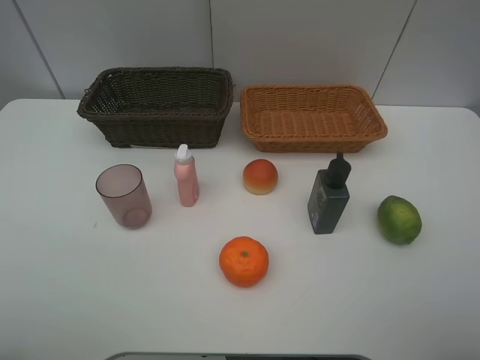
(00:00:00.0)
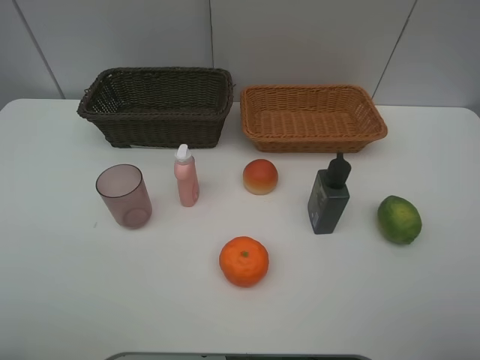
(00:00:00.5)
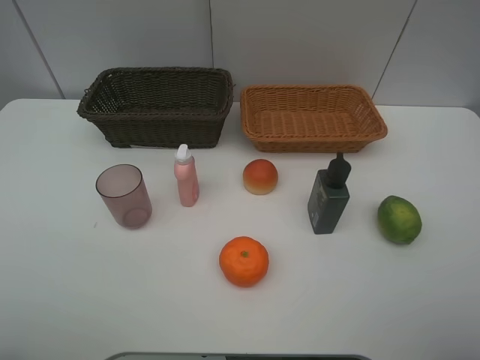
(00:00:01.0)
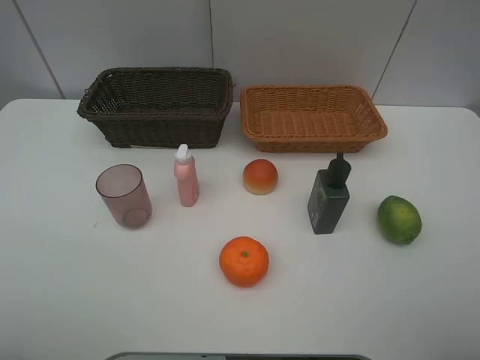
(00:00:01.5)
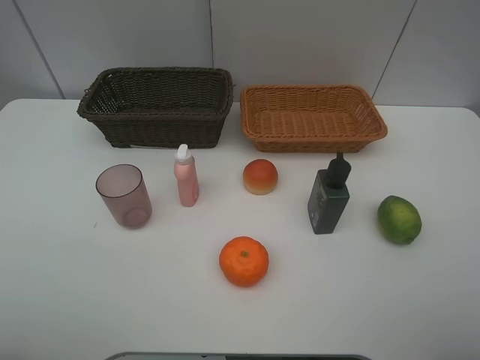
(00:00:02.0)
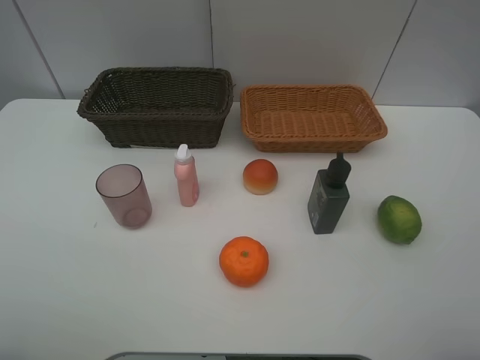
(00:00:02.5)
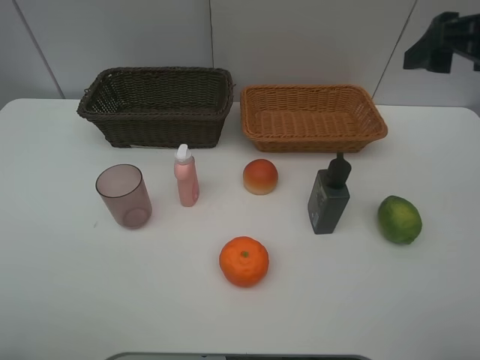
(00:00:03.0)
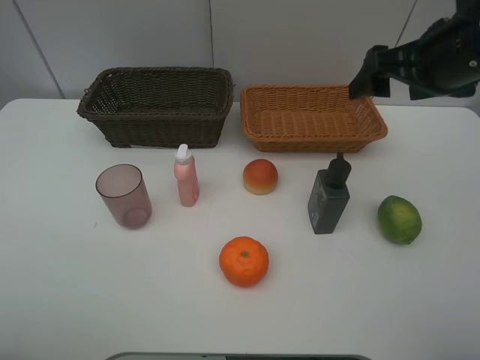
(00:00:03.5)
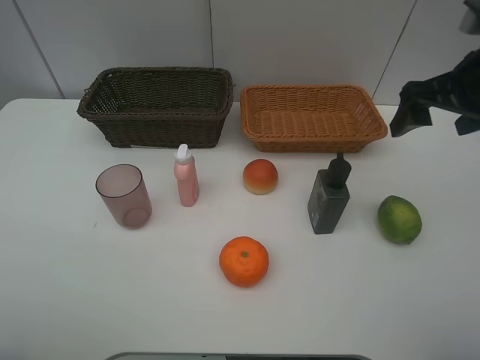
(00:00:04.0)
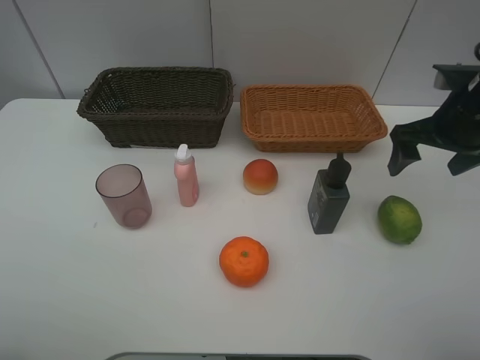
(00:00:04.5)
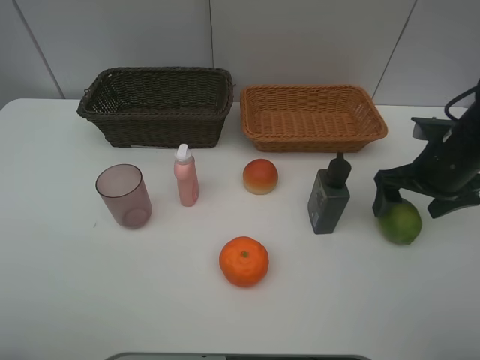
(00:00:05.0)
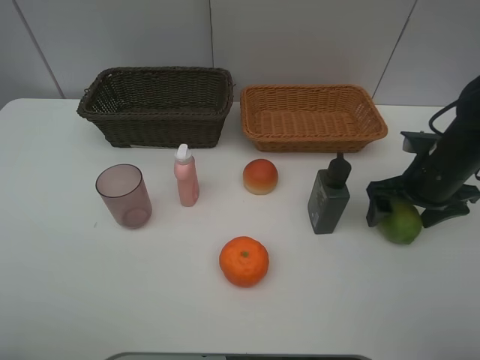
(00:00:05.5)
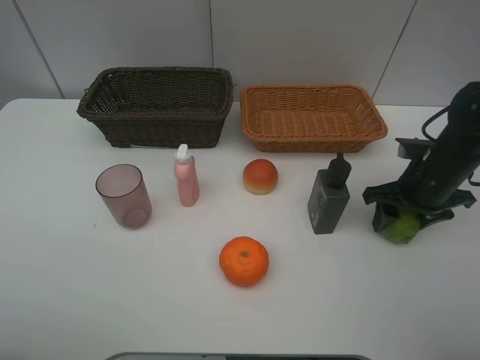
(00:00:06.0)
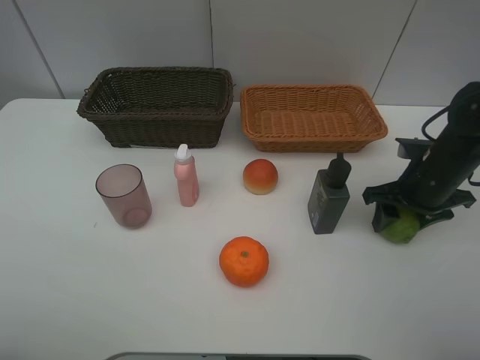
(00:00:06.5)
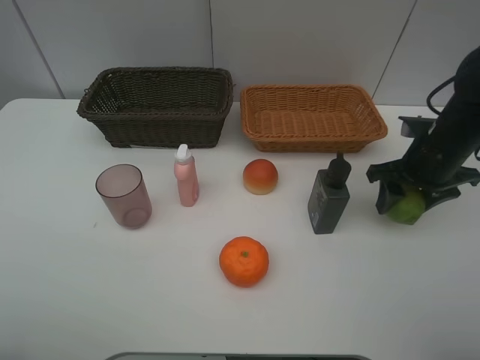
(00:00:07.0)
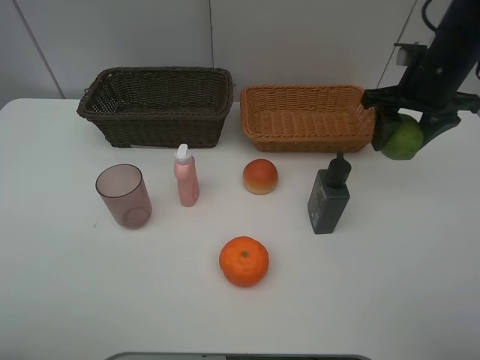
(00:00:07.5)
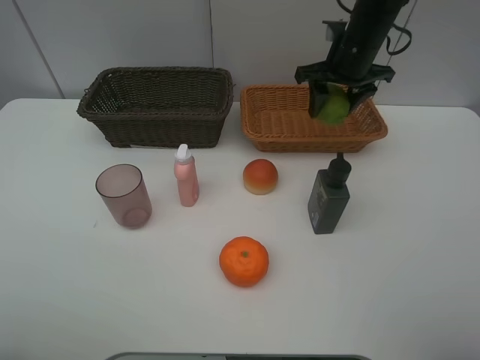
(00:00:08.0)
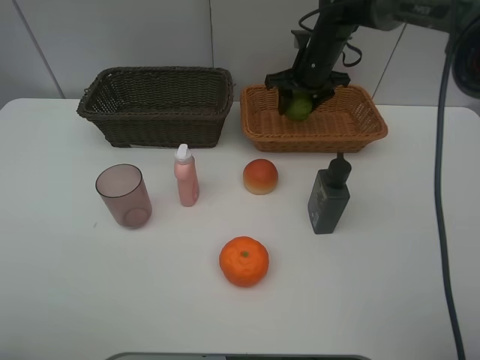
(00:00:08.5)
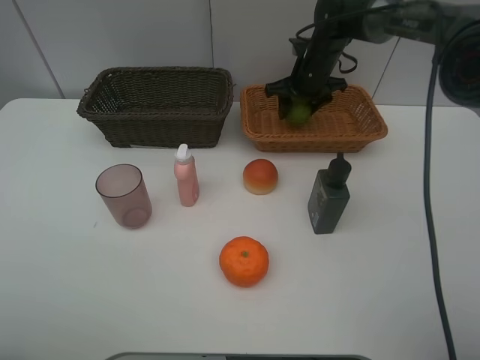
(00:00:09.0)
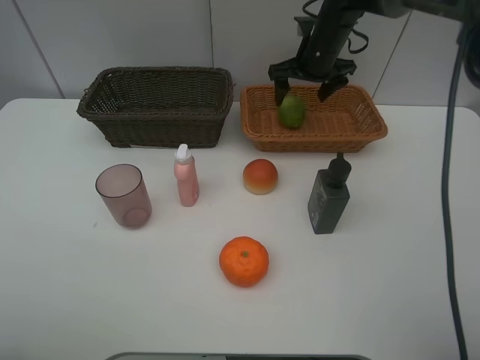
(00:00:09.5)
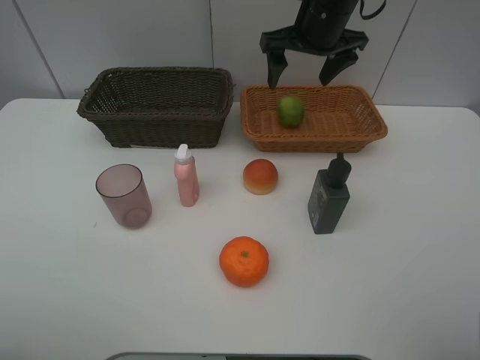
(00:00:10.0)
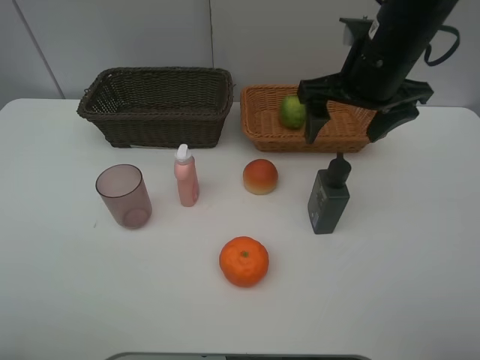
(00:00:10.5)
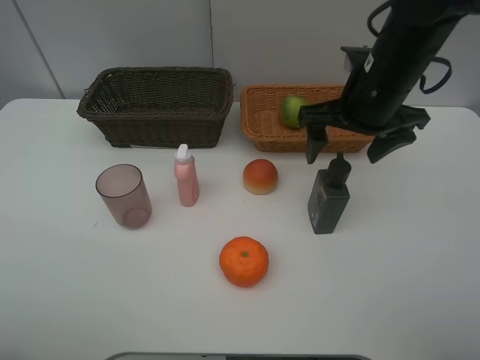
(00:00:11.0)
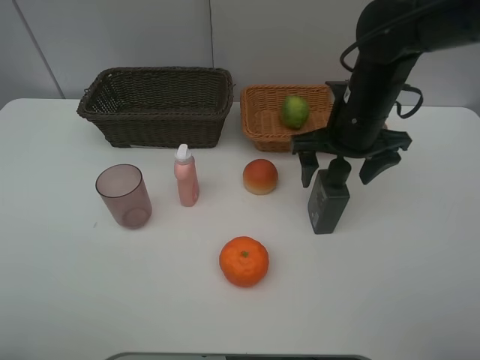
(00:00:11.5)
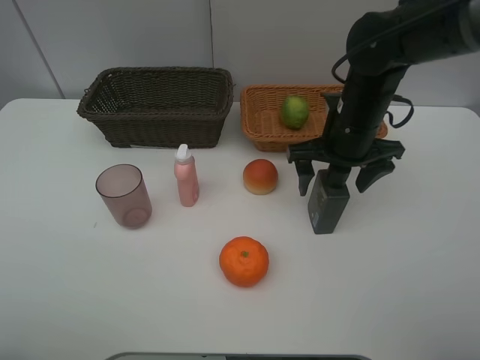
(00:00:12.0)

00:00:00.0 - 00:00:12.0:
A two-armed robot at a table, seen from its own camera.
Task of the whole recording: place multiple objects separately in different baskets.
00:00:00.0 - 00:00:02.0: Both grippers stay put.
00:00:02.0 - 00:00:04.0: The right gripper moves forward, roughly 25 cm.
00:00:04.0 - 00:00:06.0: The right gripper shifts about 15 cm downward, and closes.
00:00:06.0 - 00:00:08.0: The right gripper heads forward, to the left and upward, covering approximately 20 cm.
00:00:08.0 - 00:00:10.0: The right gripper shifts about 5 cm upward, and opens.
00:00:10.0 - 00:00:12.0: The right gripper is displaced downward and backward by some 15 cm.

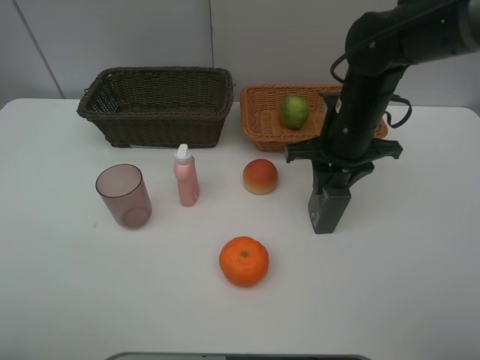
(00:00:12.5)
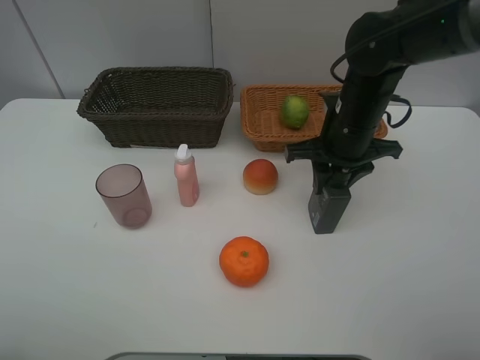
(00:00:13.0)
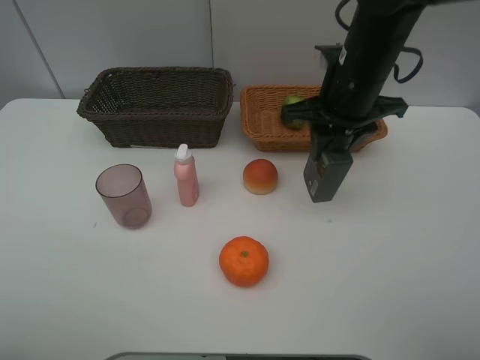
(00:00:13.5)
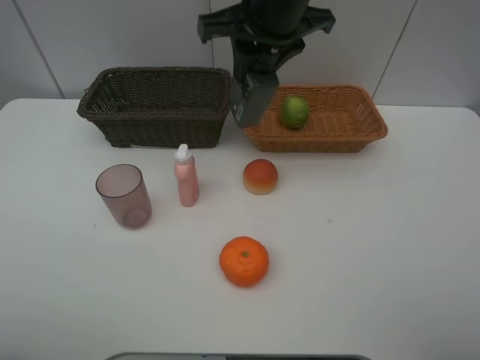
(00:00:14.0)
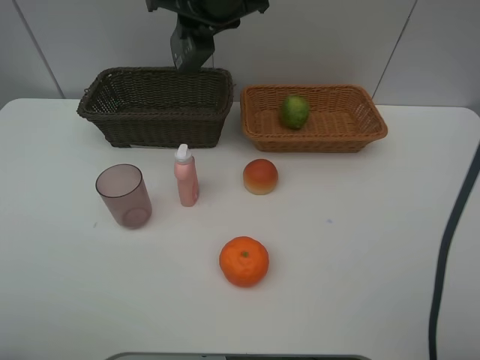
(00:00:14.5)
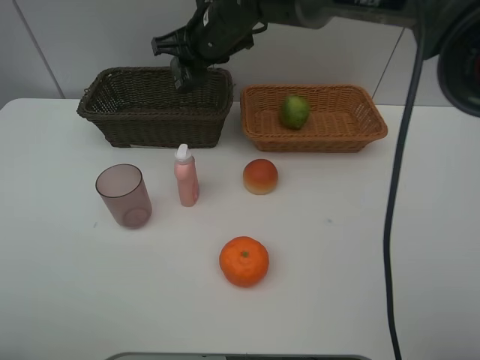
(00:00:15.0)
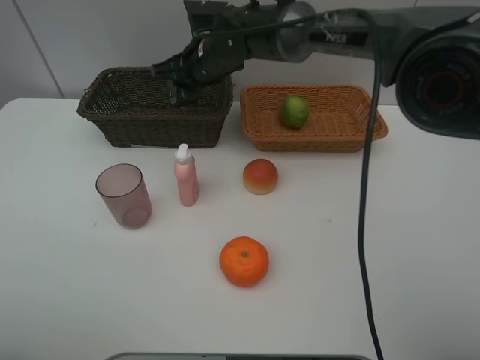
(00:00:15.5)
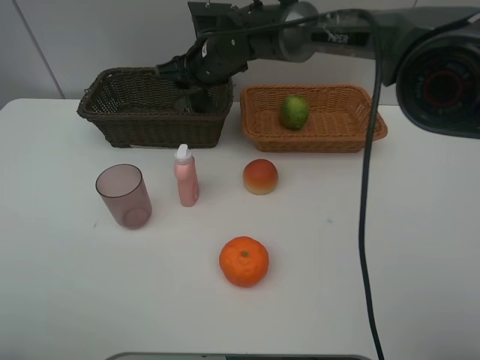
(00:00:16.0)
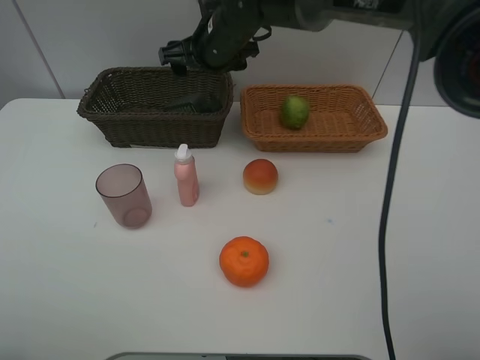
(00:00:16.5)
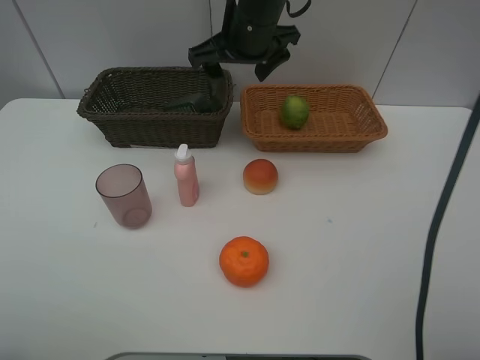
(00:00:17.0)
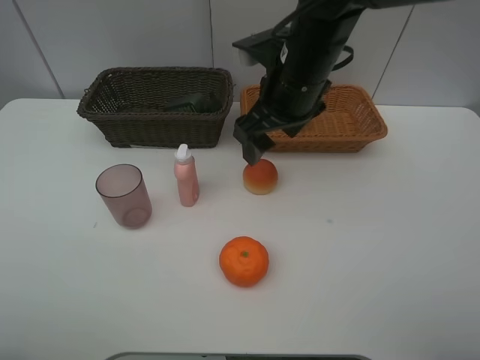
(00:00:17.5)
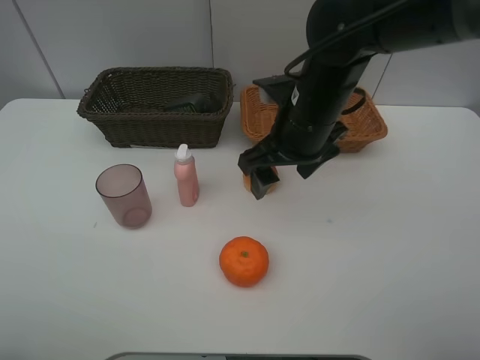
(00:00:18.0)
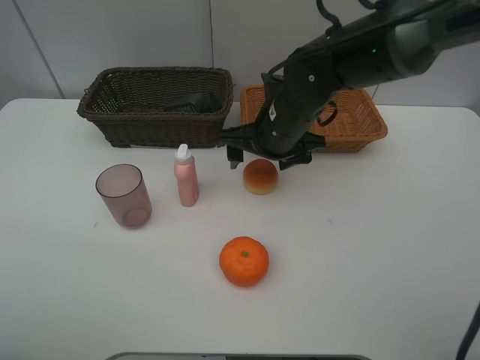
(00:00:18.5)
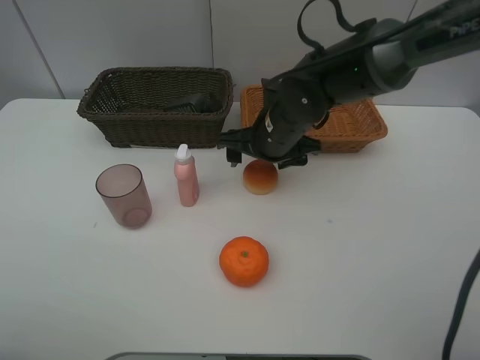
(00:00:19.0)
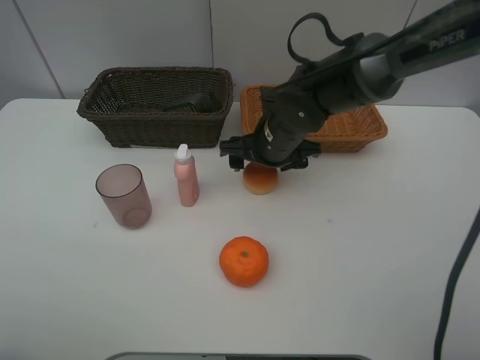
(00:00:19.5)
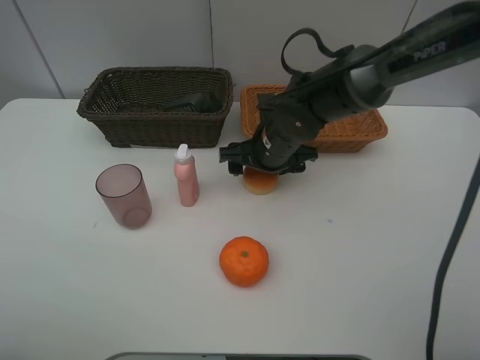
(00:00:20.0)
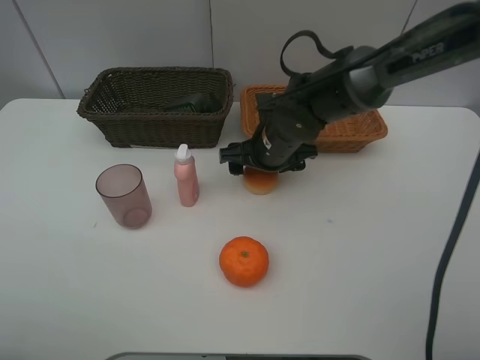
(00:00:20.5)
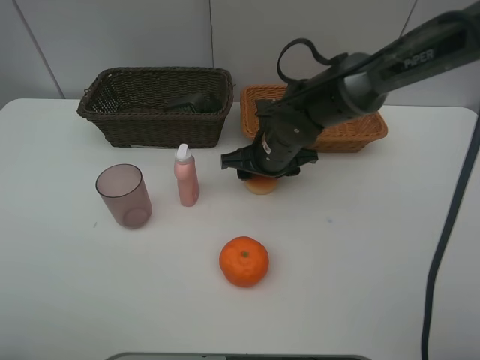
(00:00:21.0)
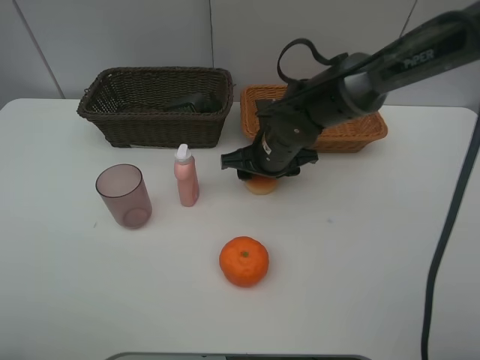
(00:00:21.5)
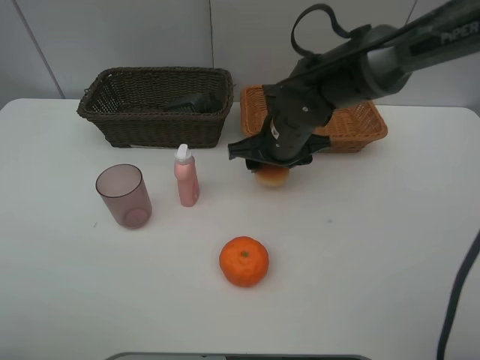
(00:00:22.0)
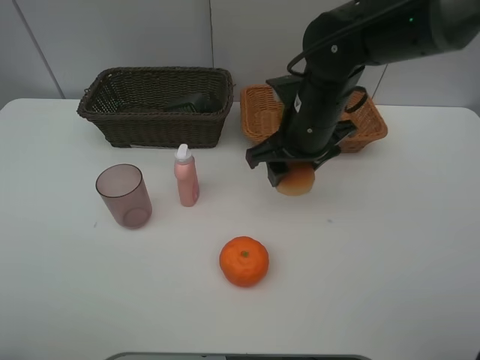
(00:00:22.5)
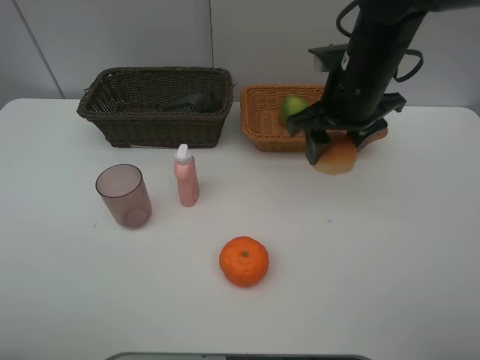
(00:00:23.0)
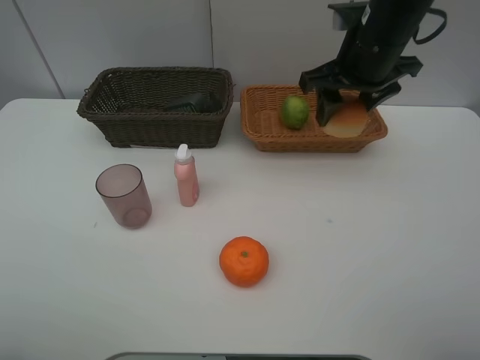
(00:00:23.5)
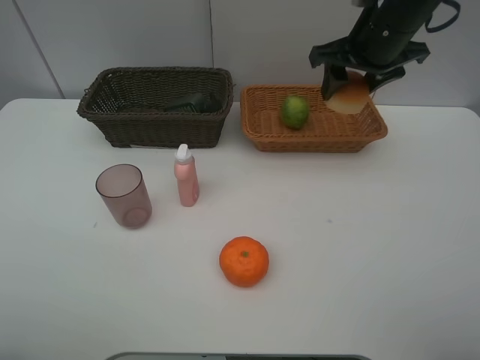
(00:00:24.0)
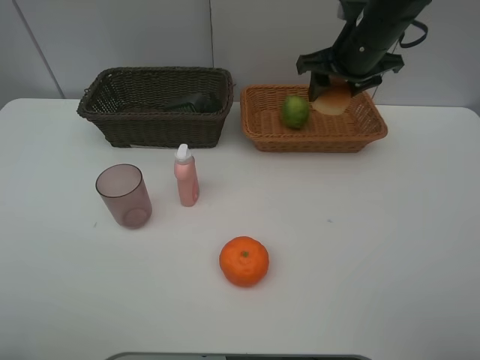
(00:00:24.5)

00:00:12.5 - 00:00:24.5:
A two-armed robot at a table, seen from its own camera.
Task of the whole recording: place multiple objects separately in different baskets.
00:00:12.5 - 00:00:14.5: The right gripper moves to the left, upward and forward, some 20 cm.
00:00:14.5 - 00:00:16.5: The right gripper is displaced downward by some 10 cm, and opens its fingers.
00:00:16.5 - 00:00:18.5: The right gripper goes about 15 cm backward, to the right and downward.
00:00:18.5 - 00:00:20.5: The right gripper moves downward, about 5 cm.
00:00:20.5 - 00:00:22.5: The right gripper heads upward, covering approximately 10 cm, and closes up.
00:00:22.5 - 00:00:24.5: The right gripper moves forward, to the right and upward, about 15 cm.

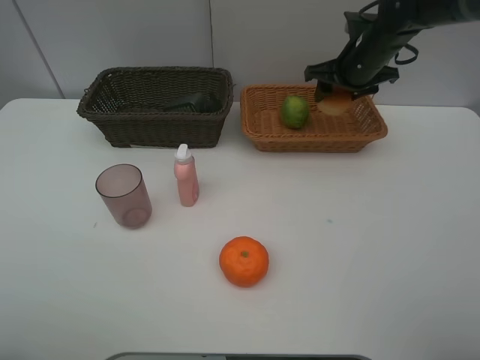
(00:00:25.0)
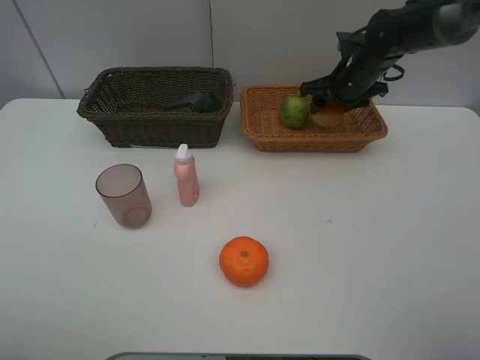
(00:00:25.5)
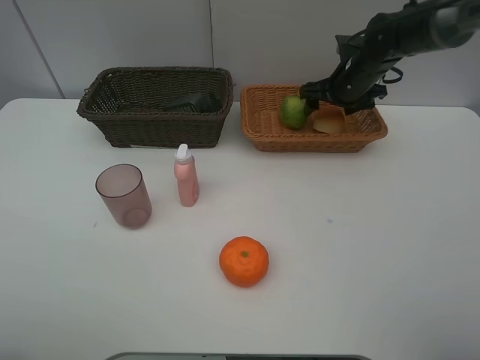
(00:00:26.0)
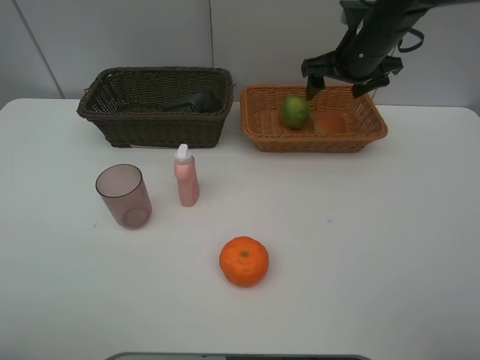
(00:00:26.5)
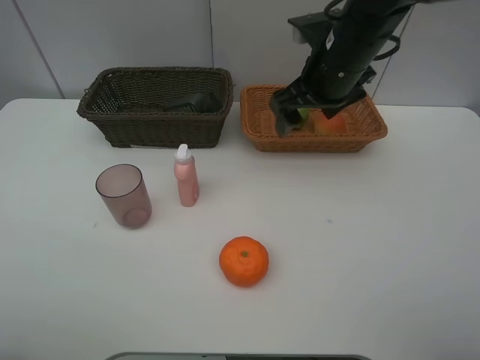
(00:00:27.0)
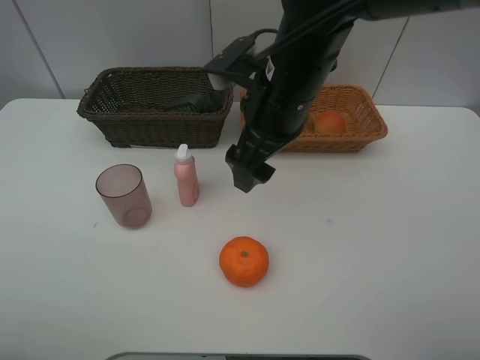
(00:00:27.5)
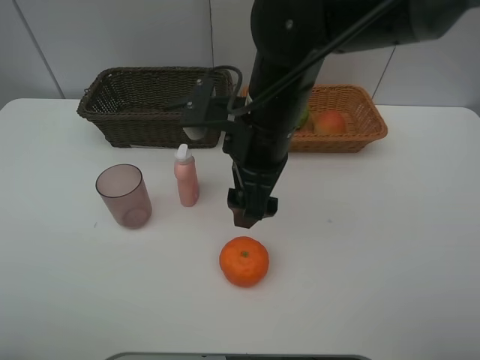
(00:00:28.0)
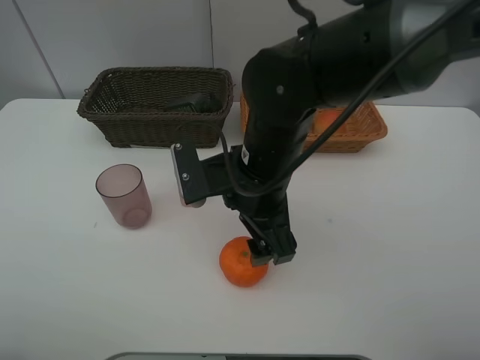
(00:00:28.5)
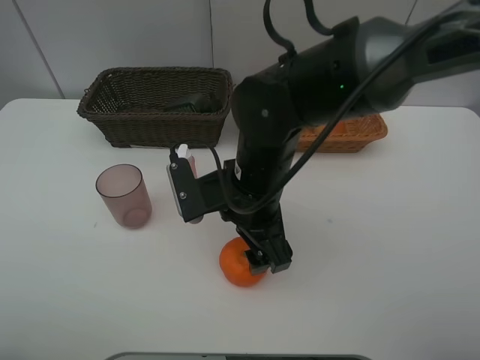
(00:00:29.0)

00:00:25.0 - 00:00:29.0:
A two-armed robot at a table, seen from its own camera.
Task of the whole recording: place multiple objects separately in different baskets.
00:00:25.0 - 00:00:27.0: The right gripper shifts about 15 cm backward and to the left, and opens.
00:00:27.0 - 00:00:29.0: The right gripper is displaced backward, to the left and downward by about 15 cm.
